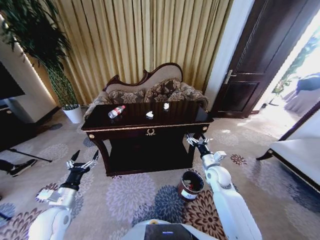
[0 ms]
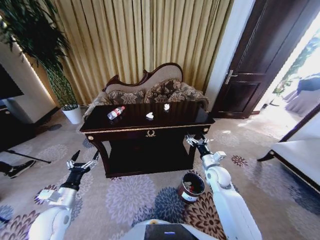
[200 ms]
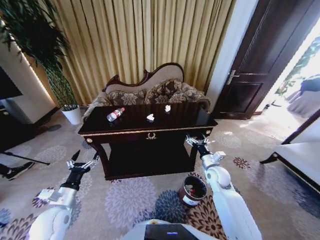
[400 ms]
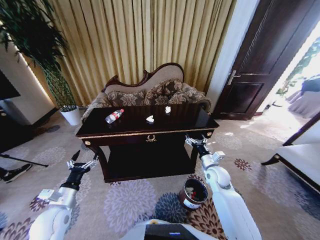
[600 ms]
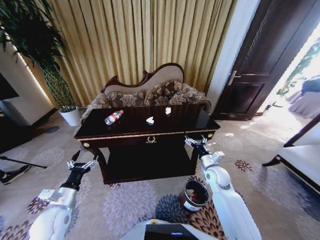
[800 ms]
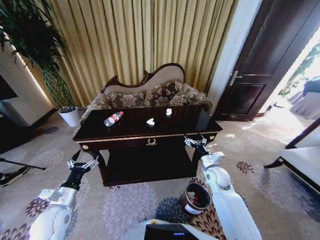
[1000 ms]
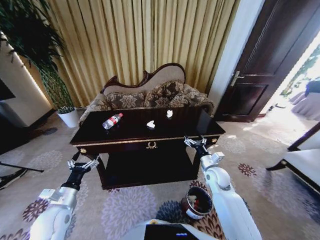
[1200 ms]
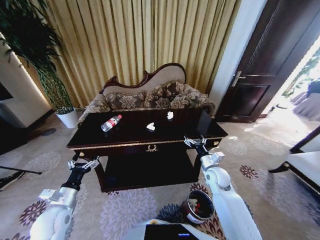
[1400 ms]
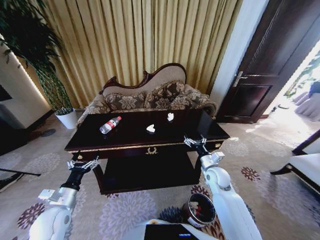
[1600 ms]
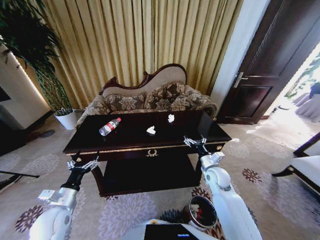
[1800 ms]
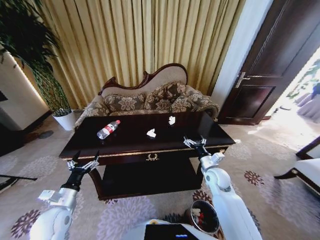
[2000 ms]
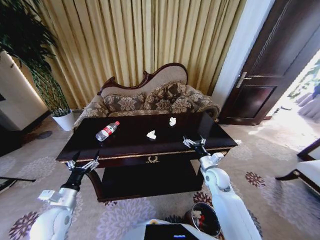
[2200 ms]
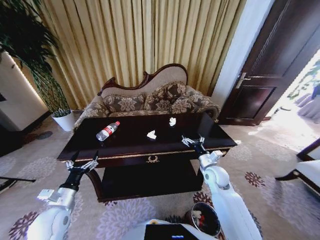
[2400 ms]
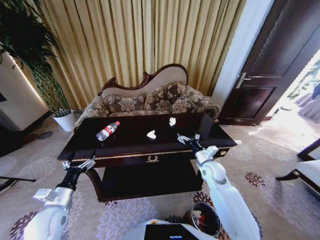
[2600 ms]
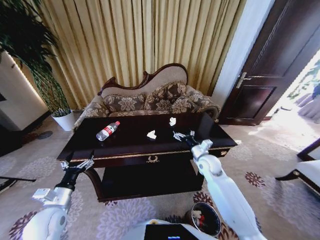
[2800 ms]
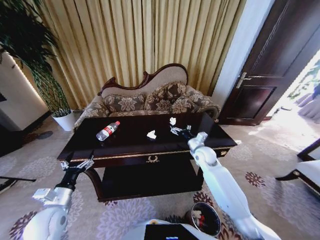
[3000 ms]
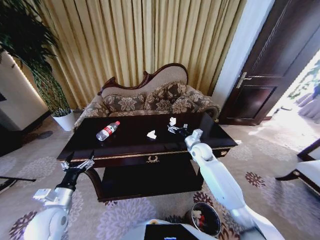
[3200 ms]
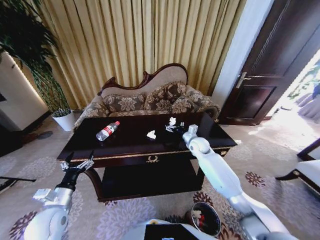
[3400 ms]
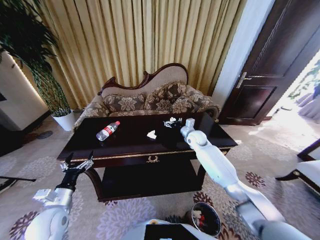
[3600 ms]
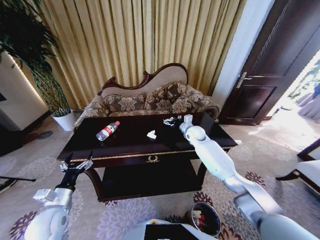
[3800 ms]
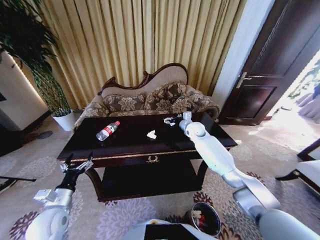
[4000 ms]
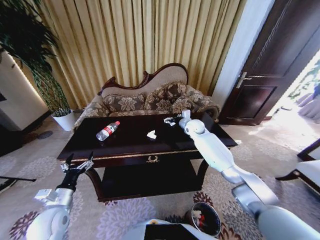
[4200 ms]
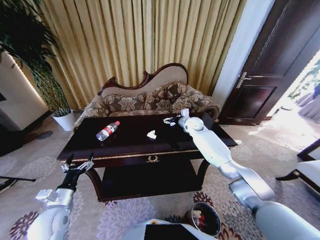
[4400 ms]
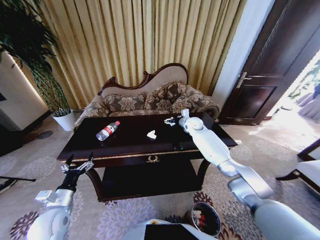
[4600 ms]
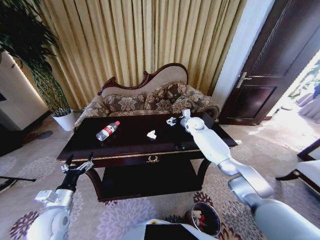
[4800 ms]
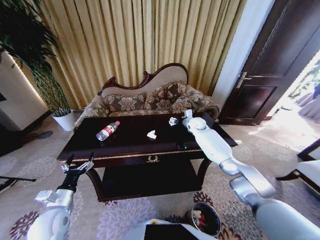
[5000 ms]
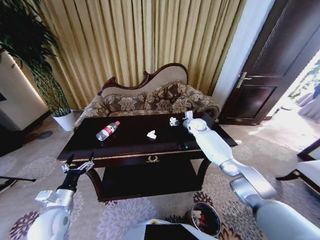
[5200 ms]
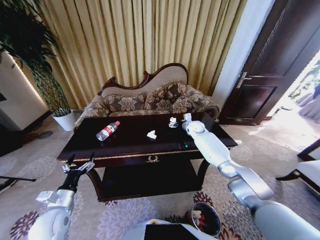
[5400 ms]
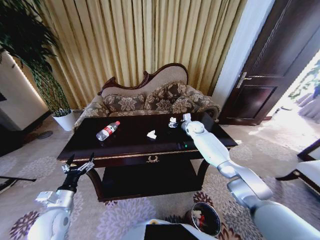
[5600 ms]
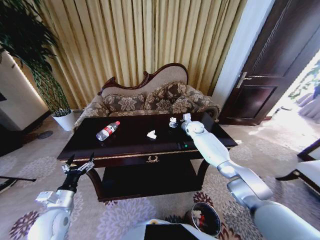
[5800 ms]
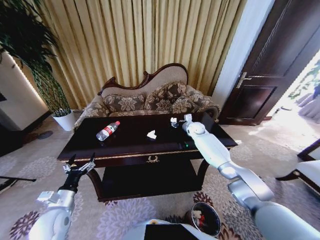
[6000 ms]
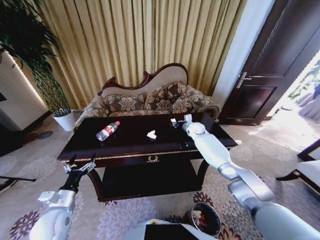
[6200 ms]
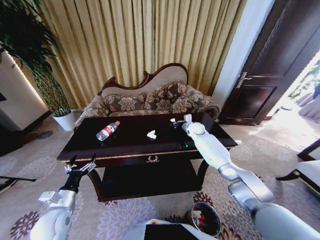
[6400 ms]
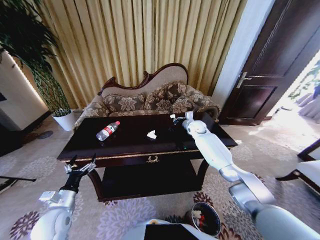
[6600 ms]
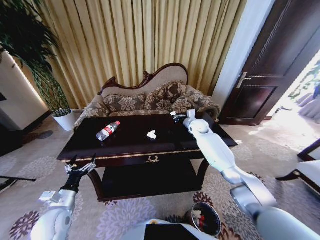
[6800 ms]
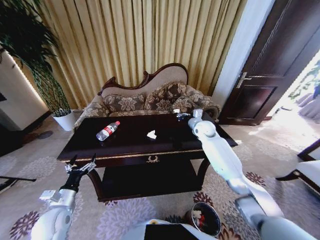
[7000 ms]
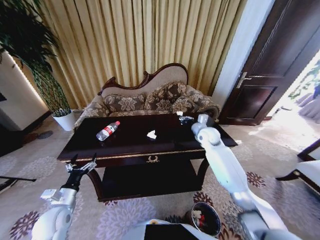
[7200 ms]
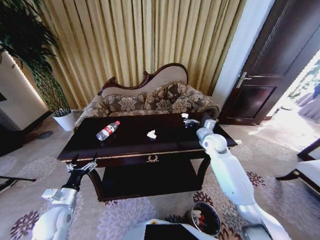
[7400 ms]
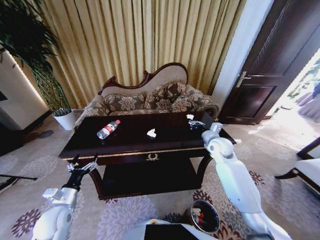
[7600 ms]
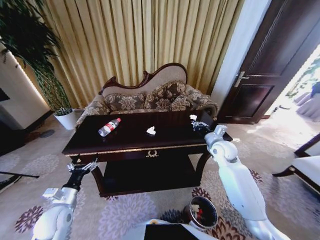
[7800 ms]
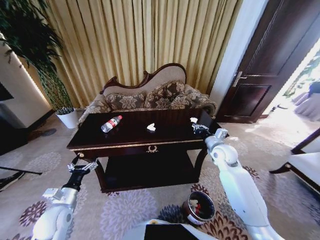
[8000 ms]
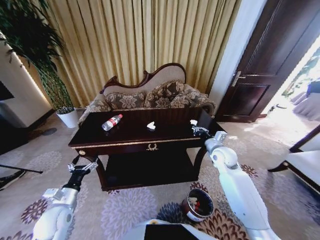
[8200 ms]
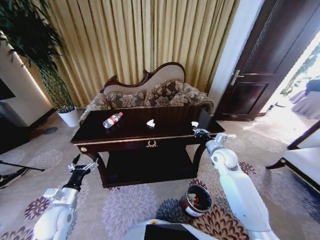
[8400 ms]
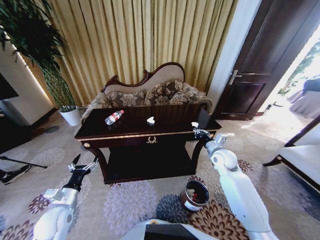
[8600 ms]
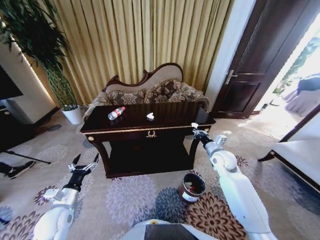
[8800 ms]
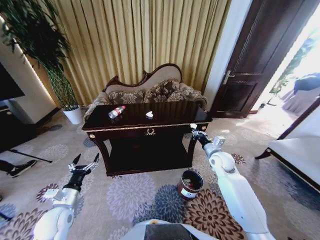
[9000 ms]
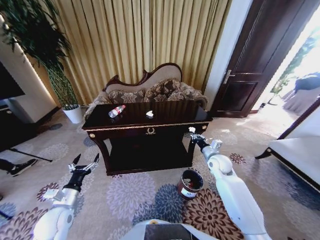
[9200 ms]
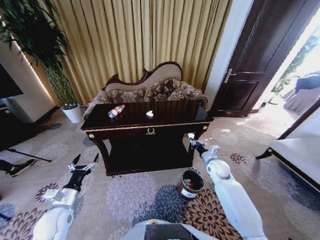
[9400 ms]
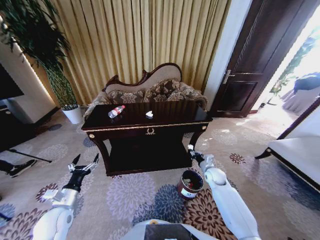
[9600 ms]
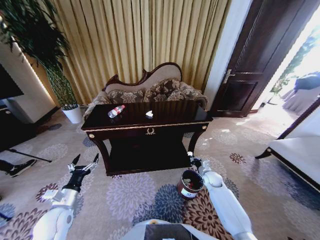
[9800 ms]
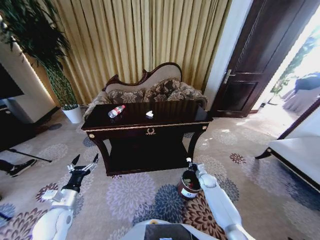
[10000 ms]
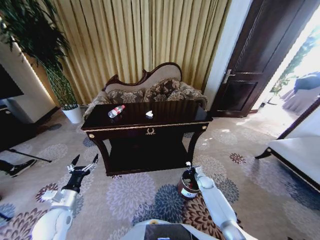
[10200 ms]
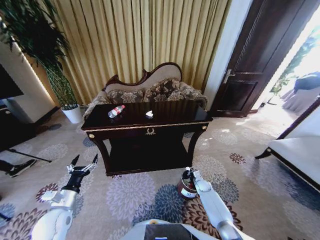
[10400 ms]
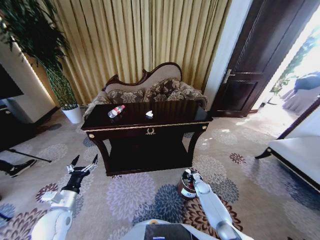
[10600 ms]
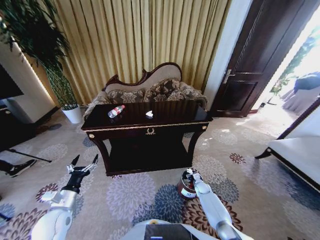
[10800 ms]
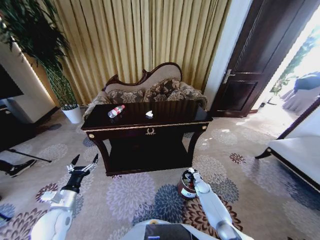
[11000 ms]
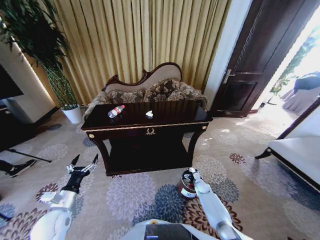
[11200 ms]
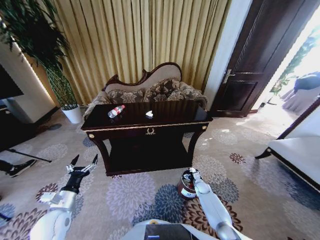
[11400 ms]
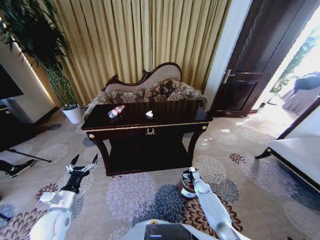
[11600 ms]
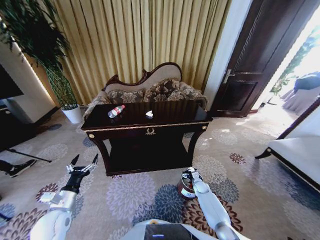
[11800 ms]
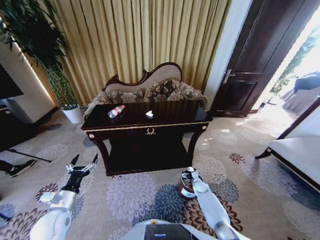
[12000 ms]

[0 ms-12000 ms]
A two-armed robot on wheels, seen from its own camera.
Task of the whole recording: Move to the front of the table and place the trash on the table into the trash bin.
1600 ms to 3000 ms: The right gripper is displaced forward by roughly 10 cm.
3000 ms to 4400 ms: The right gripper is displaced forward by approximately 15 cm.
4400 ms to 6000 ms: The right gripper ends up about 5 cm from where it was, and closes up.
6000 ms to 7600 ms: The right gripper is displaced backward by approximately 15 cm, and closes its fingers.
7600 ms to 9000 ms: The right gripper is displaced downward by some 5 cm.
9000 ms to 10400 ms: The right gripper heads downward, covering roughly 30 cm.
10400 ms to 12000 ms: The right gripper opens up.

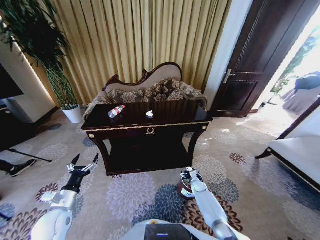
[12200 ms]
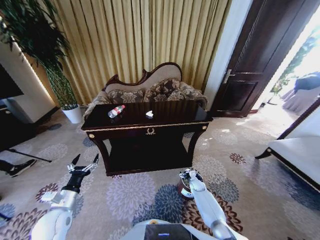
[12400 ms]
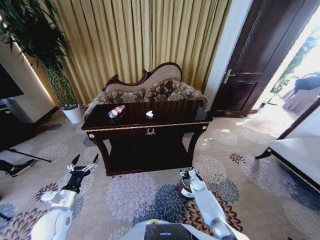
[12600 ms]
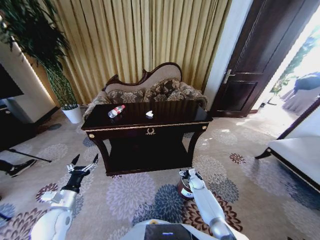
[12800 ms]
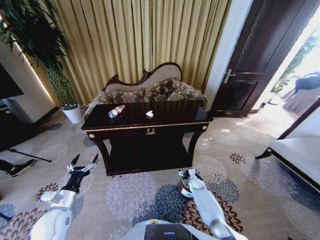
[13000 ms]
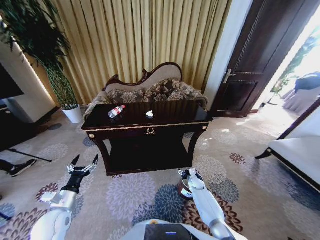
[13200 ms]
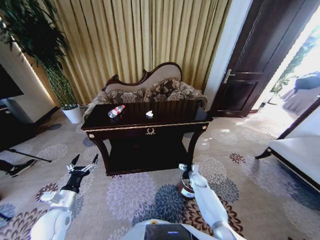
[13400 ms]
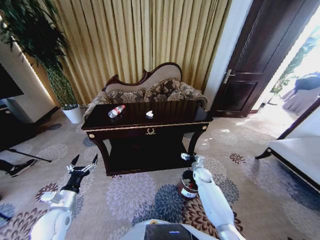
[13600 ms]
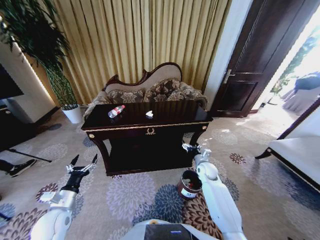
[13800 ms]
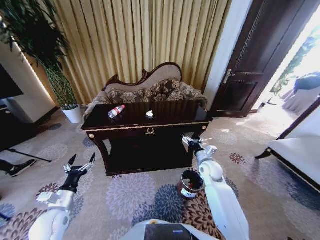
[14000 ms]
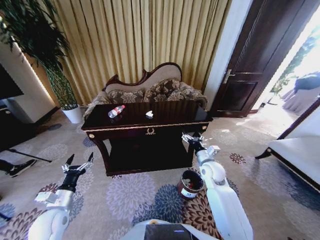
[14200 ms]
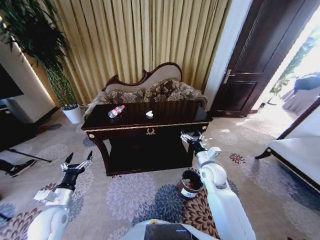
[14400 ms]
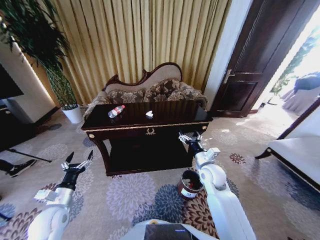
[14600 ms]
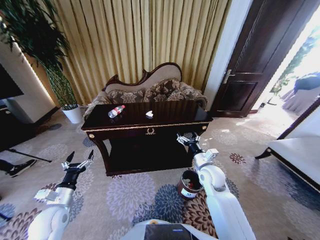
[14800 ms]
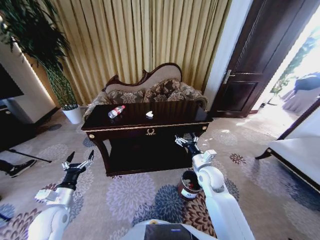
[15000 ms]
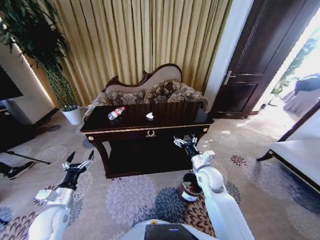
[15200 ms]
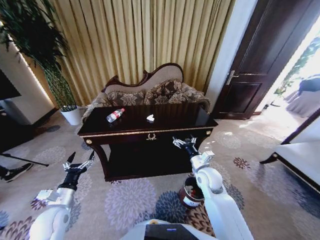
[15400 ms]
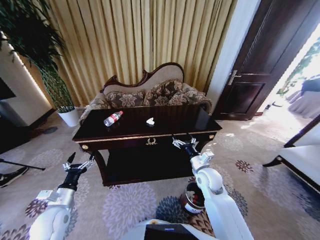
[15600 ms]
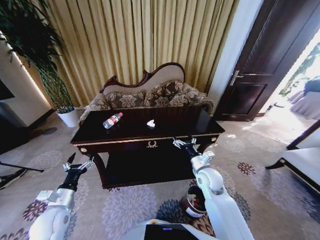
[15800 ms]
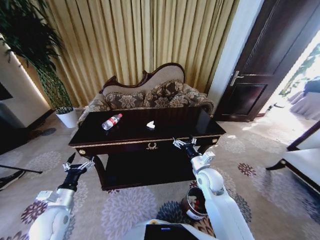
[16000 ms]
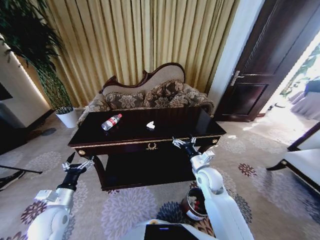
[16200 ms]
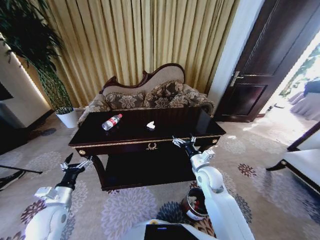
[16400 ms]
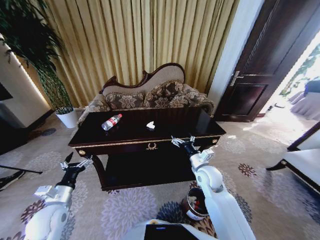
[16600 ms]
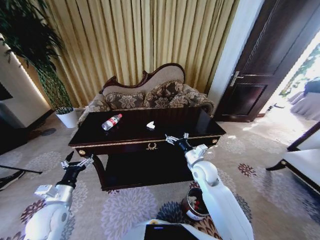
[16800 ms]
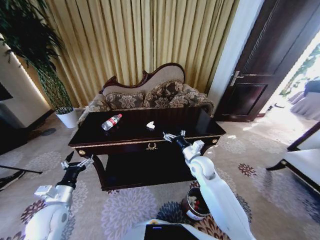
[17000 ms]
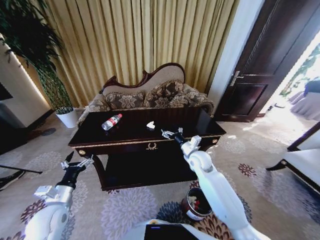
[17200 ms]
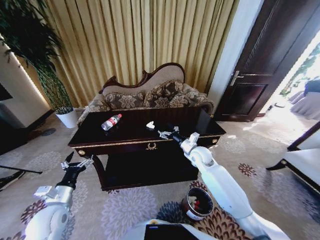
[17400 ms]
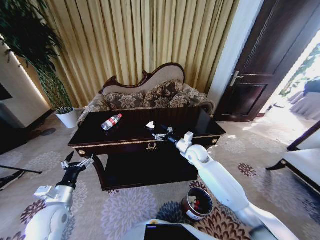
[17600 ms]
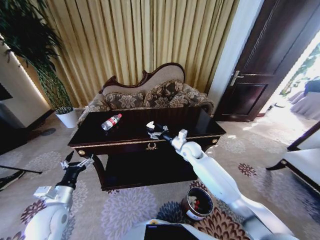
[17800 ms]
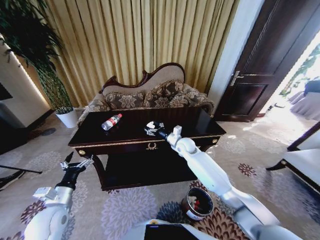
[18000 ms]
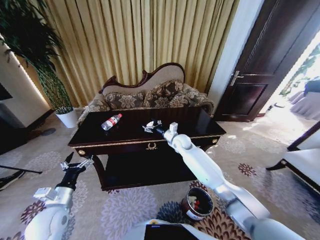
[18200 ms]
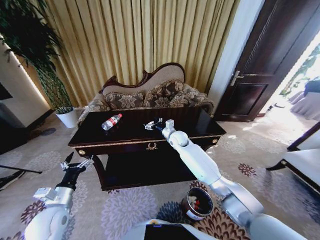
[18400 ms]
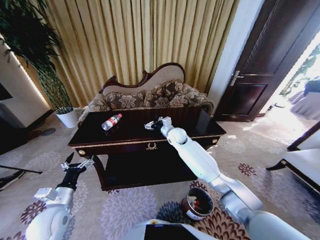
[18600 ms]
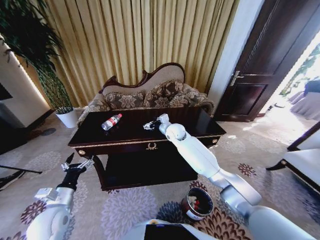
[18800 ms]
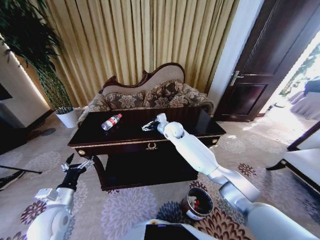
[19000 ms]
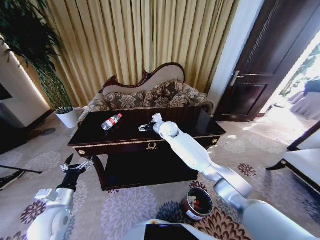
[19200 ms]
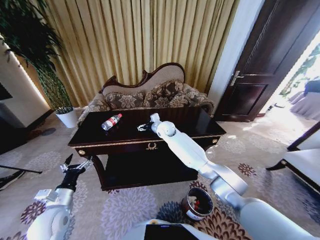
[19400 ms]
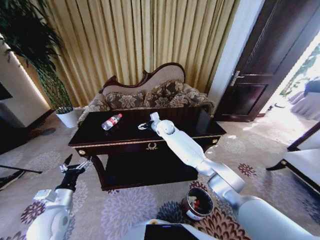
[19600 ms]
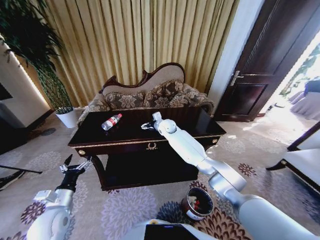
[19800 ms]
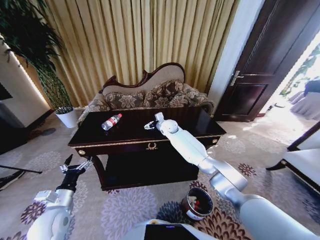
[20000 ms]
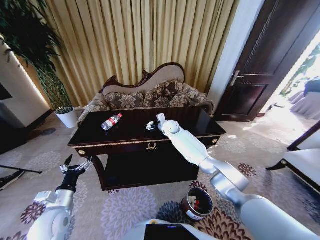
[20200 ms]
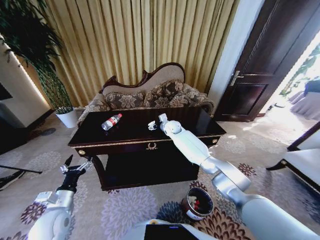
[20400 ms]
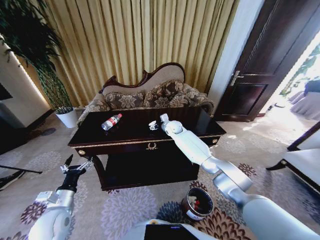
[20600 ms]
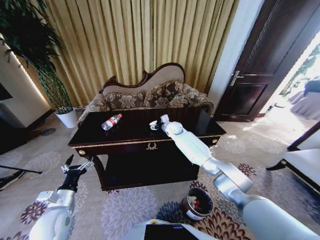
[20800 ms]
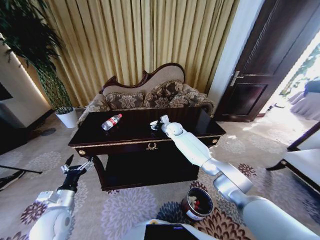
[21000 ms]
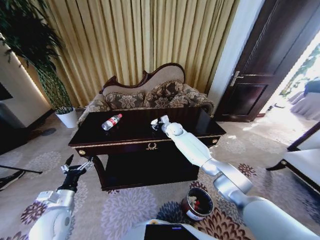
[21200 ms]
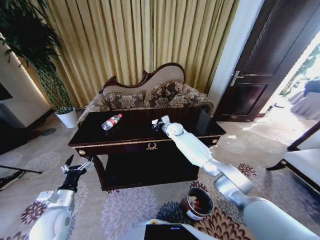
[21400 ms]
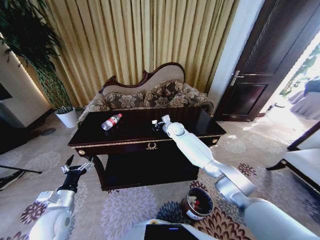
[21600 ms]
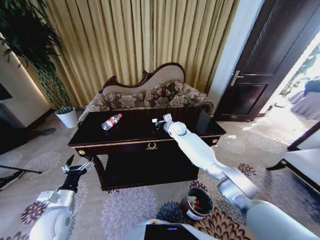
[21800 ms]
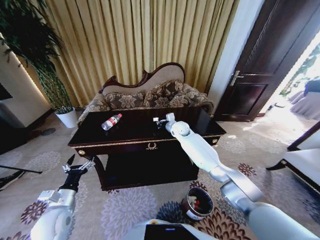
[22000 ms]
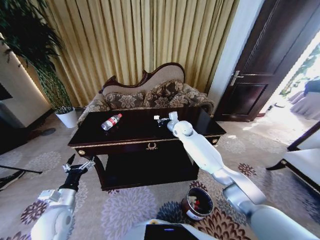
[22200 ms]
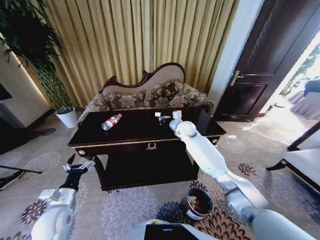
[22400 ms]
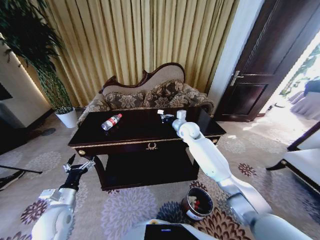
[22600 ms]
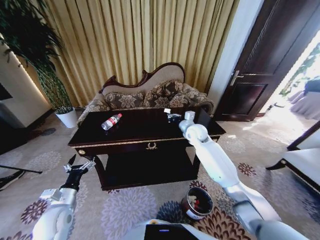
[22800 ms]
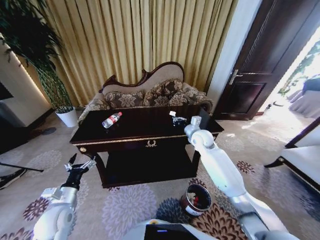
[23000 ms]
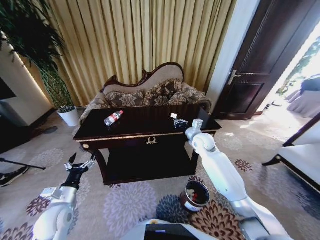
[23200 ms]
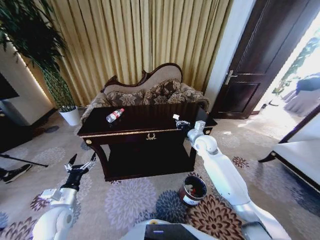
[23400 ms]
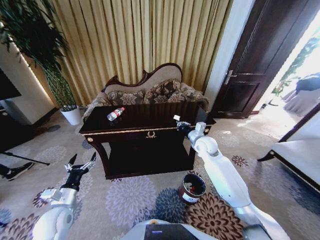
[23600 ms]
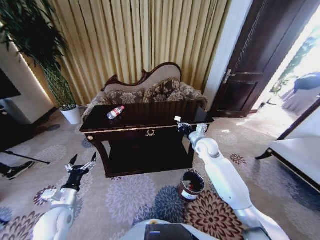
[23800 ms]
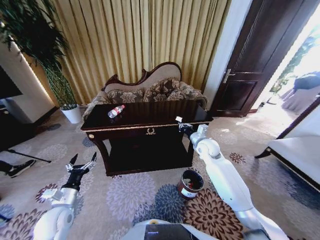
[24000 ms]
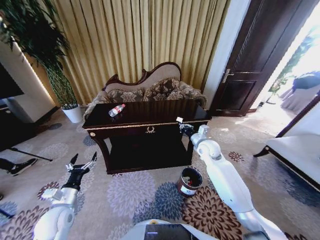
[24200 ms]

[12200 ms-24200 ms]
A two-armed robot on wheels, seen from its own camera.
Task of the whole recording: Move to the front of the table and place the trash on the table into the trash bin.
12200 ms to 13800 ms: The right gripper goes roughly 20 cm upward.
13800 ms to 15200 ms: The right gripper goes approximately 10 cm upward, backward and to the left.
16600 ms to 18200 ms: The right gripper shifts some 20 cm forward and to the left.
18200 ms to 19800 ms: The right gripper goes roughly 10 cm forward and to the left.
19800 ms to 21200 ms: The right gripper shifts by about 5 cm, and closes up.
21200 ms to 22600 ms: The right gripper shifts about 10 cm backward, upward and to the right, and closes up.
22600 ms to 24200 ms: The right gripper shifts some 10 cm backward and to the right.
